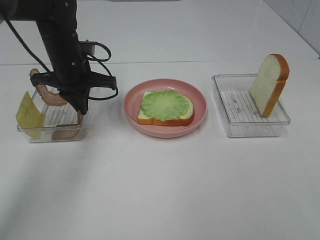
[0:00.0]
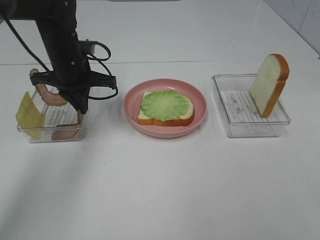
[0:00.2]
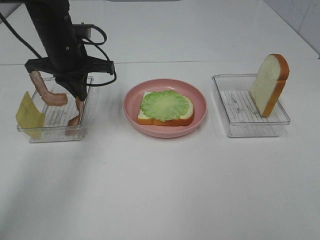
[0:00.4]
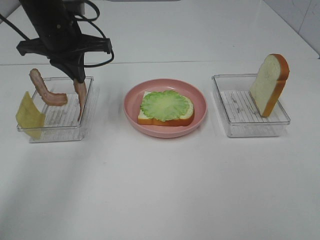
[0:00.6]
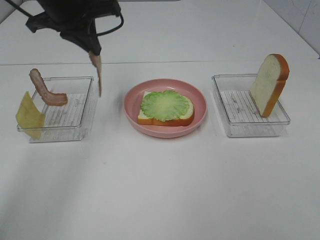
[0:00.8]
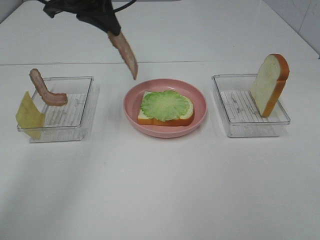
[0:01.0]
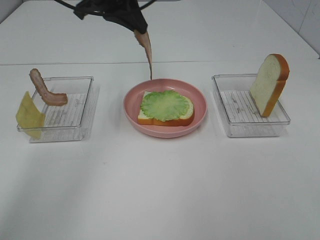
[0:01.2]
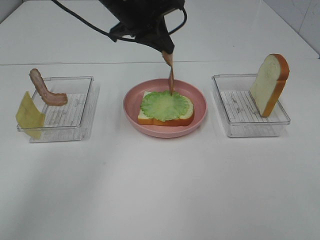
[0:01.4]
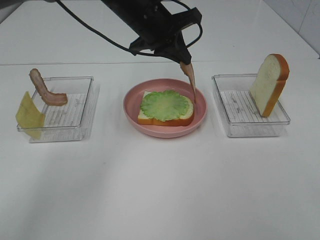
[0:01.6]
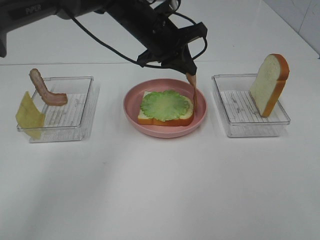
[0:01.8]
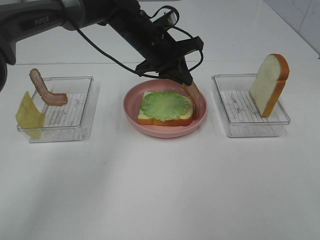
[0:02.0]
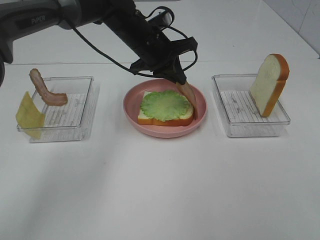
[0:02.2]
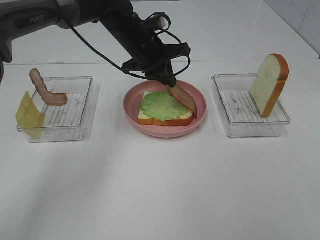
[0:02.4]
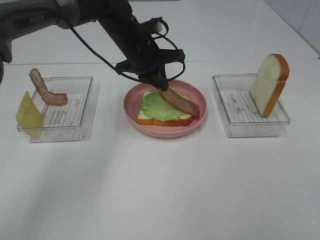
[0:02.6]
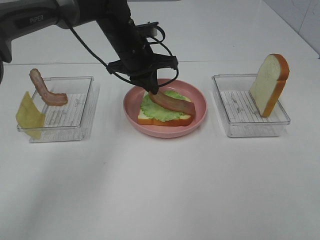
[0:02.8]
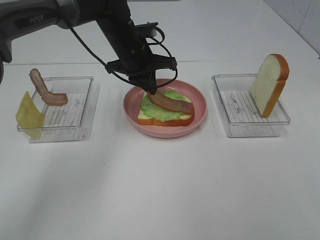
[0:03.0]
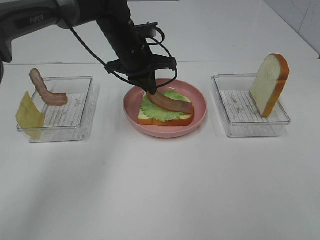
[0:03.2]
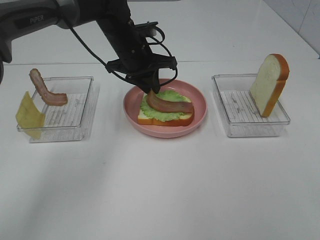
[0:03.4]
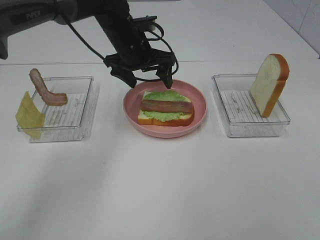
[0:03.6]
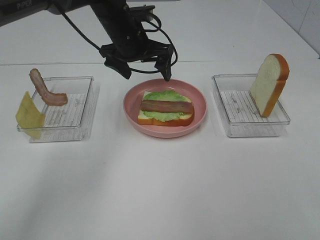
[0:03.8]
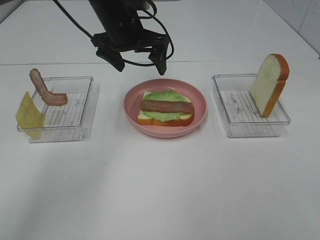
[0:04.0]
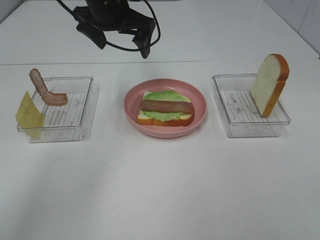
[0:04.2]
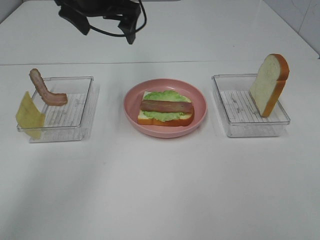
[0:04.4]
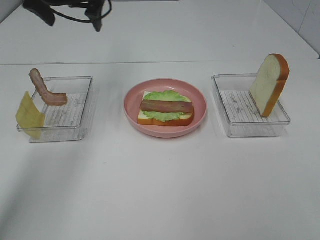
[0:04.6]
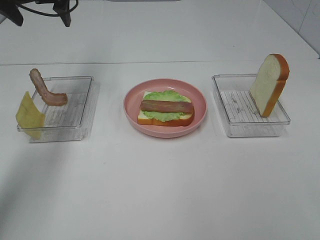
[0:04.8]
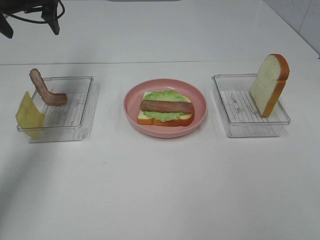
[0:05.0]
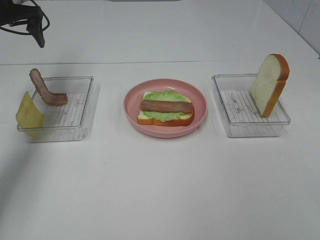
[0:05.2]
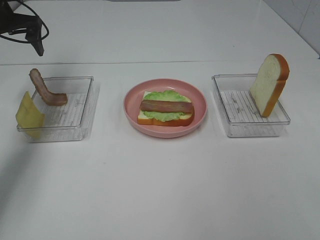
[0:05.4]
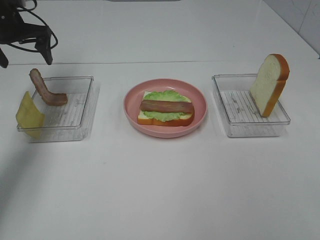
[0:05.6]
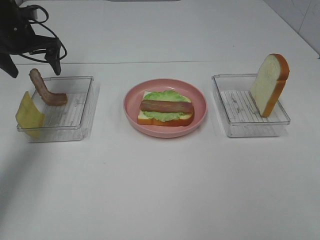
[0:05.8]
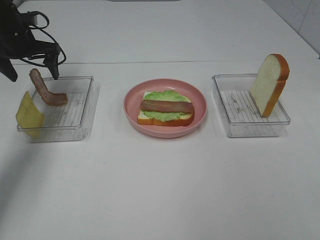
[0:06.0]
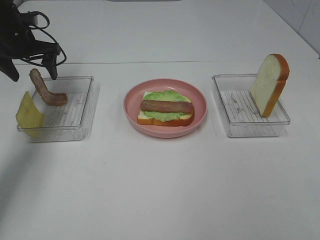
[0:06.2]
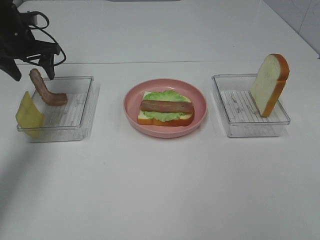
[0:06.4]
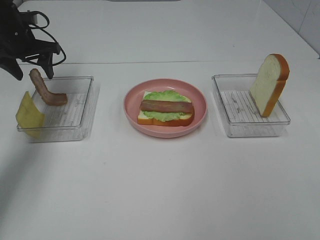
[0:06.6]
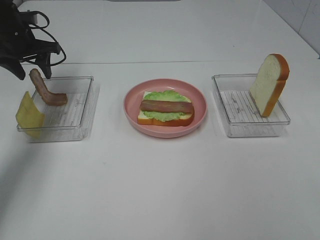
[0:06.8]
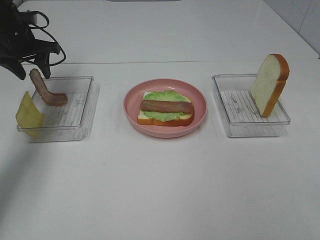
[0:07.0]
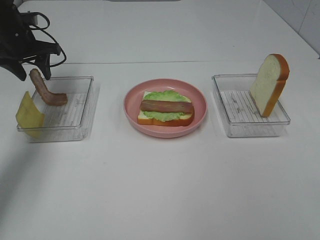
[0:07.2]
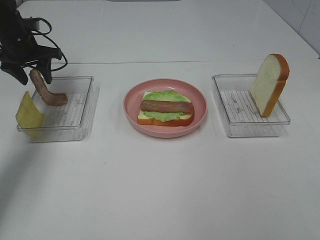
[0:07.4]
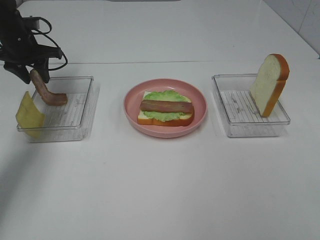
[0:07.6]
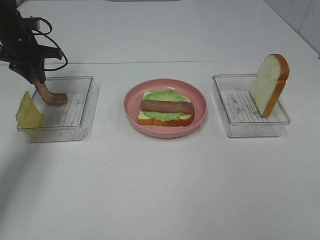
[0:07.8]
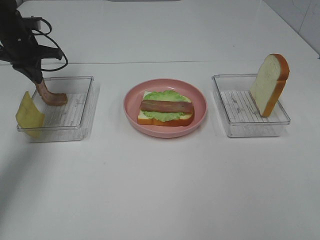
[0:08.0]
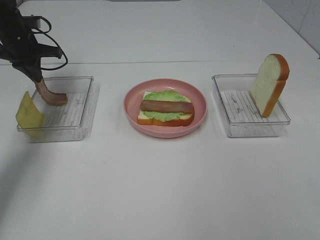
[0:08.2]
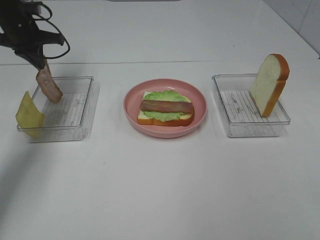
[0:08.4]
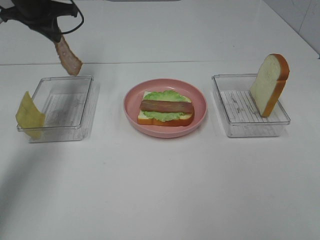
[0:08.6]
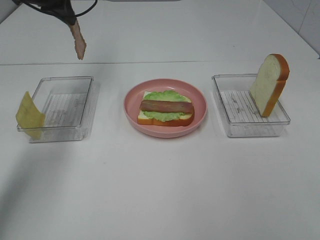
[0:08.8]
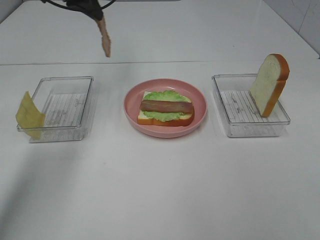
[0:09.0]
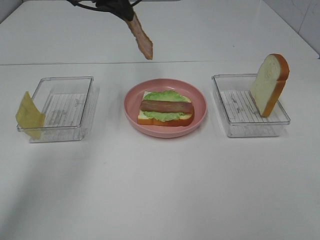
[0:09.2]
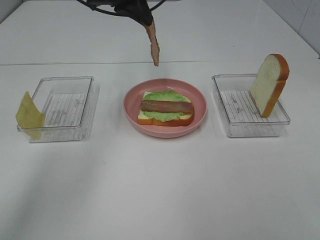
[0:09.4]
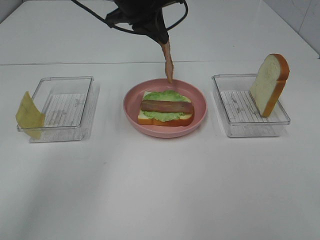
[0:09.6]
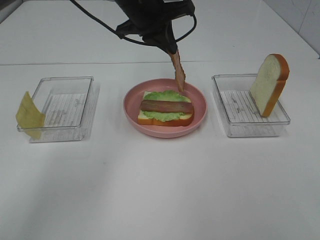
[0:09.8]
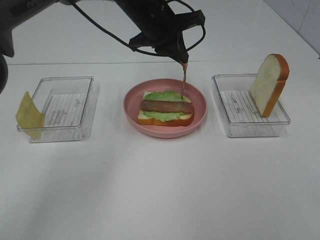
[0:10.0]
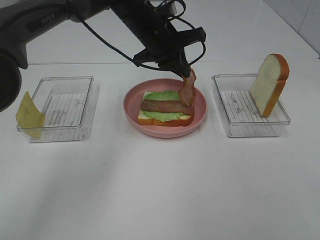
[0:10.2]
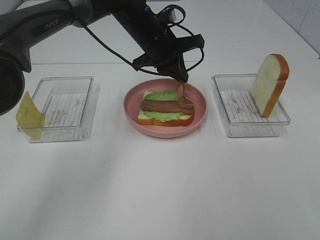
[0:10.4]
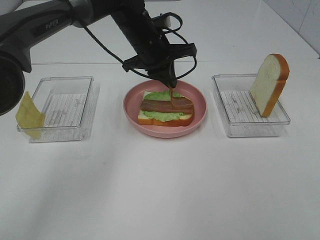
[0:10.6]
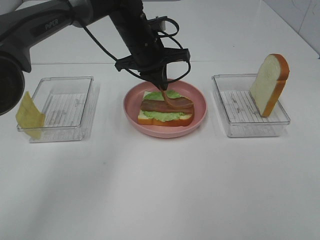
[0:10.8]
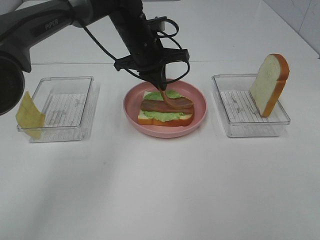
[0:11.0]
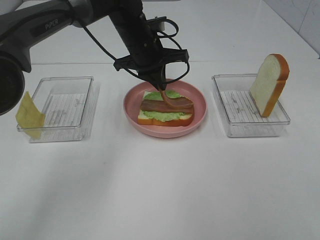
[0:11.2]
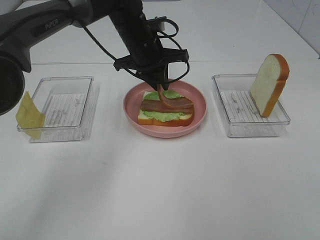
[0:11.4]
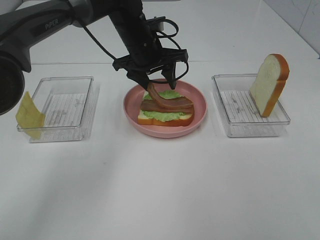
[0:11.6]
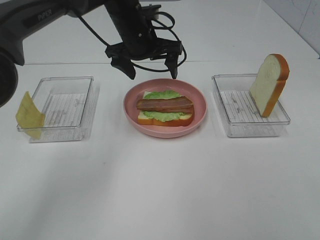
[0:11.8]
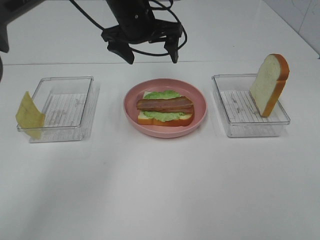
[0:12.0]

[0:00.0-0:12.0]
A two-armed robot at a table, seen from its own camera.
Task of the whole recording: Make sandwiches.
Step, 0:00.4 to 0:03.6: Left hand:place bacon on lettuce slice.
Step, 0:03.8 to 0:08.0: Left hand:grab the bacon.
Step, 0:08.2 to 0:11.8: Left hand:place bacon on bacon.
0:00.0 to 0:01.6: The left gripper is displaced to the right and upward by some 15 cm.
0:01.6 to 0:03.0: The left gripper goes roughly 5 cm downward.
0:03.0 to 0:04.4: The left gripper is displaced upward and to the left by some 15 cm, and opens.
0:04.4 to 0:06.0: The left gripper moves to the left and downward, some 20 cm.
0:06.0 to 0:07.6: The left gripper closes its fingers.
0:07.6 to 0:09.0: The left gripper travels to the right and upward by roughly 20 cm, and closes.
0:09.0 to 0:10.4: The left gripper travels to the right and downward by approximately 20 cm.
0:10.4 to 0:12.0: The left gripper moves upward, about 5 cm, and opens.

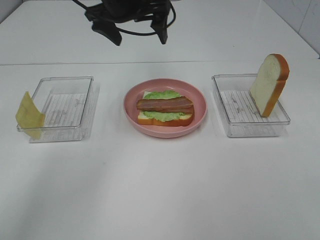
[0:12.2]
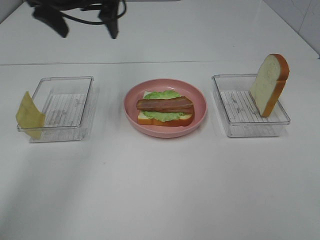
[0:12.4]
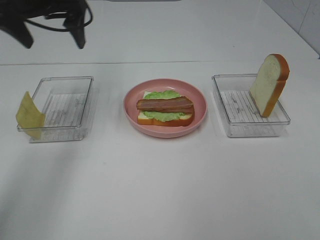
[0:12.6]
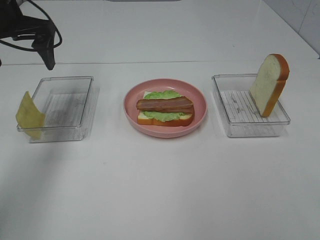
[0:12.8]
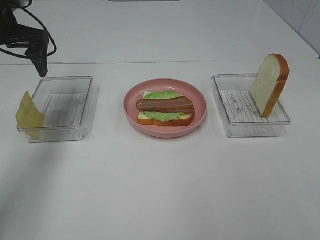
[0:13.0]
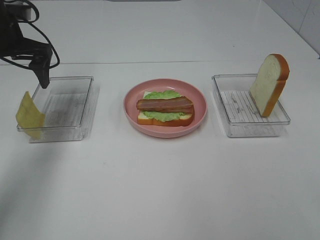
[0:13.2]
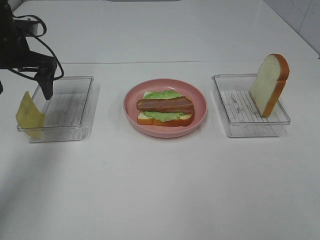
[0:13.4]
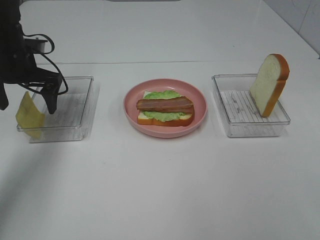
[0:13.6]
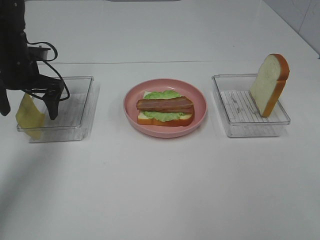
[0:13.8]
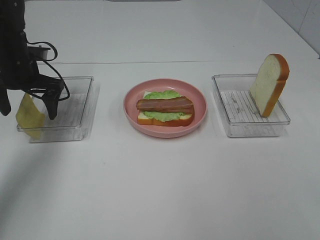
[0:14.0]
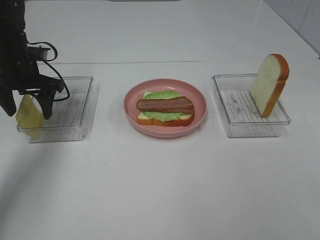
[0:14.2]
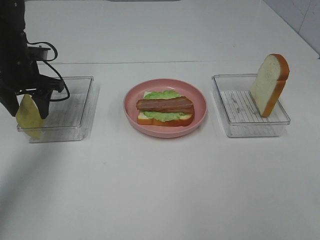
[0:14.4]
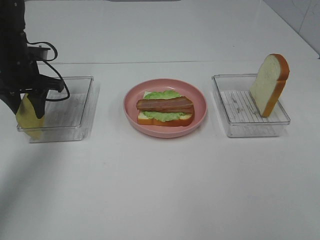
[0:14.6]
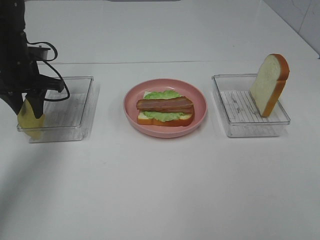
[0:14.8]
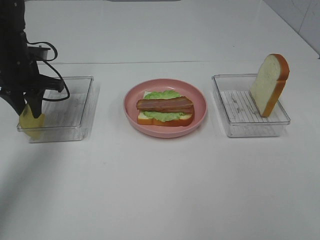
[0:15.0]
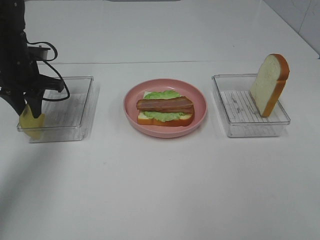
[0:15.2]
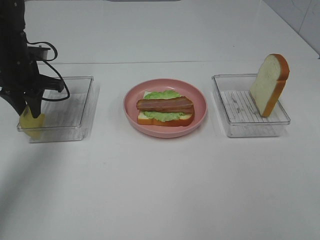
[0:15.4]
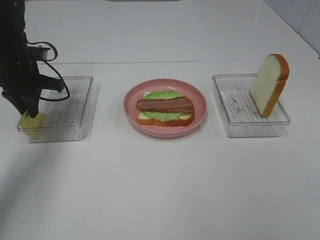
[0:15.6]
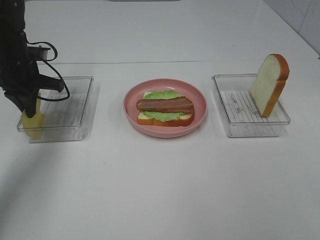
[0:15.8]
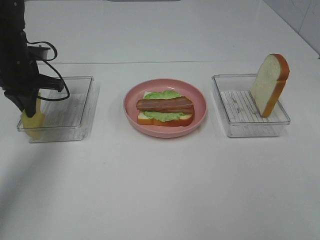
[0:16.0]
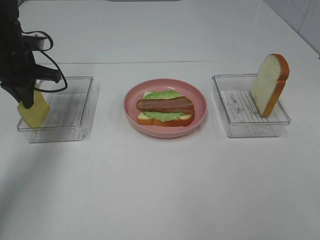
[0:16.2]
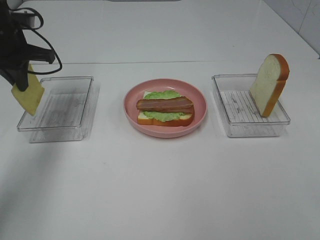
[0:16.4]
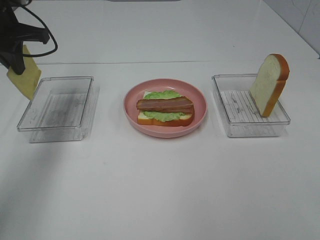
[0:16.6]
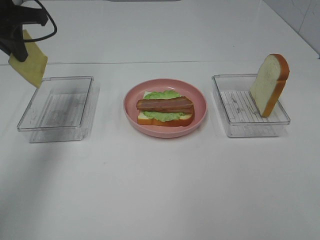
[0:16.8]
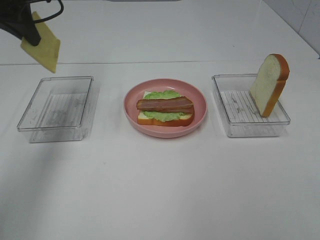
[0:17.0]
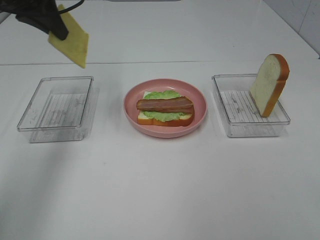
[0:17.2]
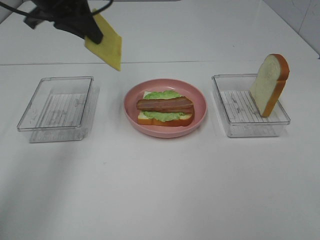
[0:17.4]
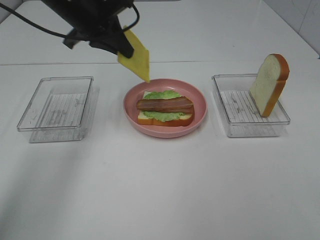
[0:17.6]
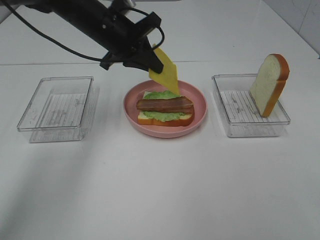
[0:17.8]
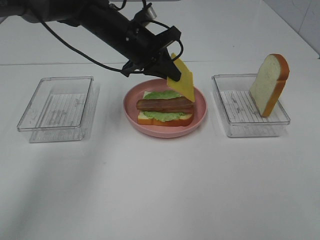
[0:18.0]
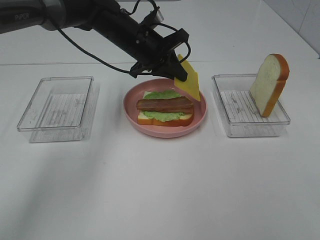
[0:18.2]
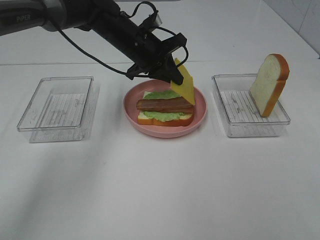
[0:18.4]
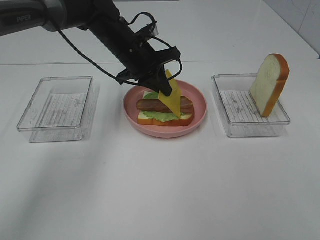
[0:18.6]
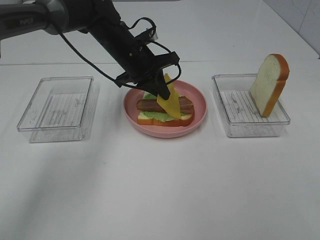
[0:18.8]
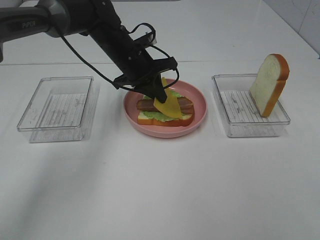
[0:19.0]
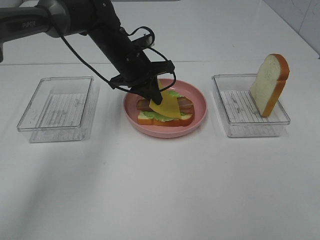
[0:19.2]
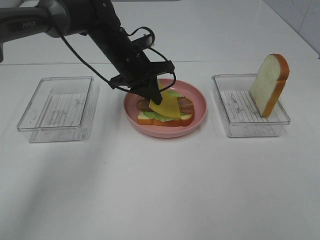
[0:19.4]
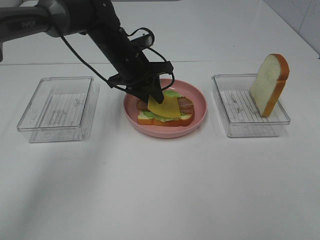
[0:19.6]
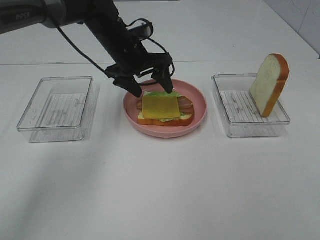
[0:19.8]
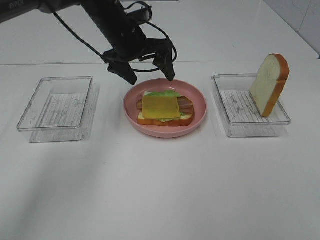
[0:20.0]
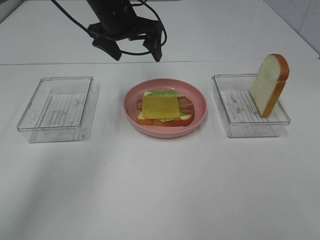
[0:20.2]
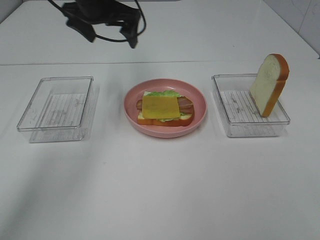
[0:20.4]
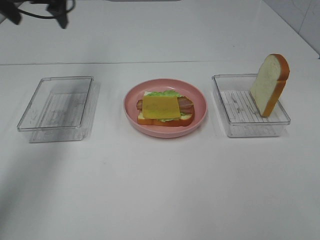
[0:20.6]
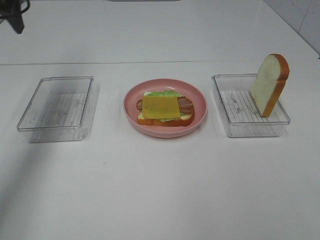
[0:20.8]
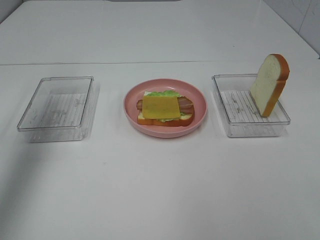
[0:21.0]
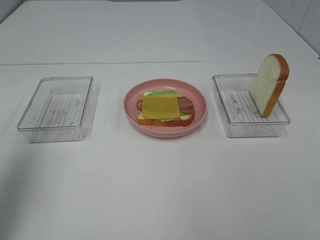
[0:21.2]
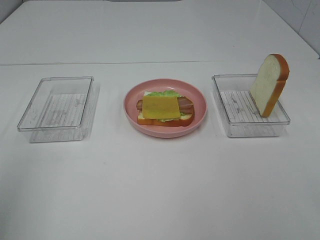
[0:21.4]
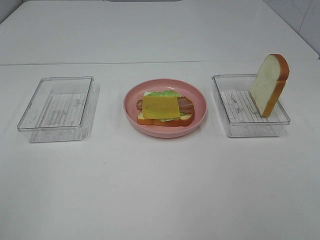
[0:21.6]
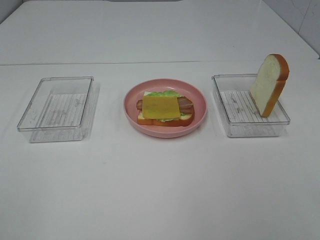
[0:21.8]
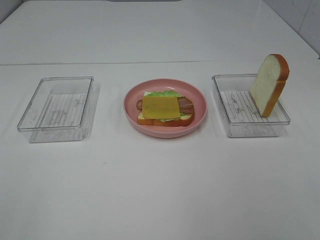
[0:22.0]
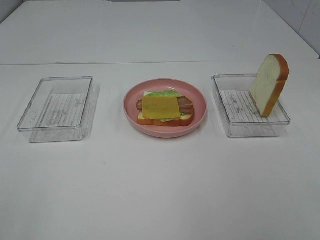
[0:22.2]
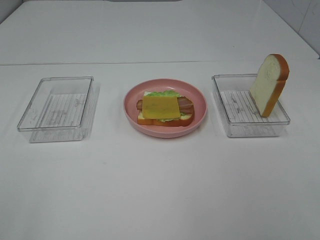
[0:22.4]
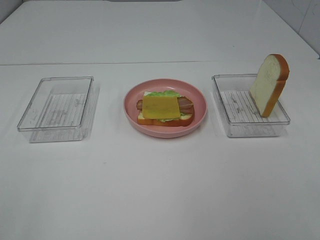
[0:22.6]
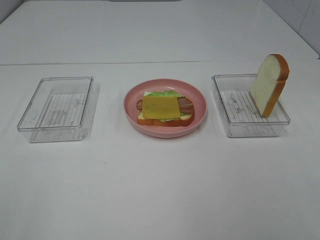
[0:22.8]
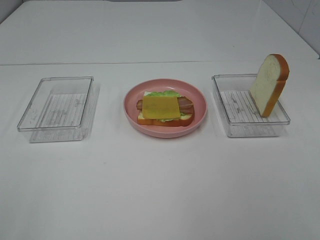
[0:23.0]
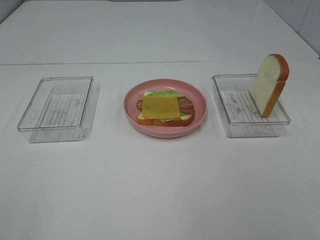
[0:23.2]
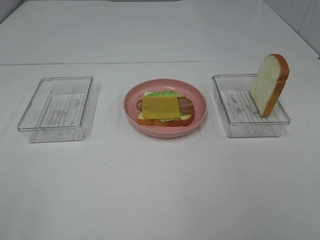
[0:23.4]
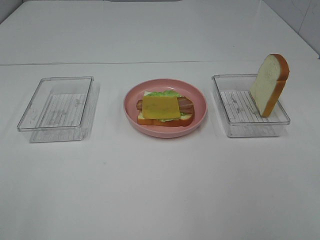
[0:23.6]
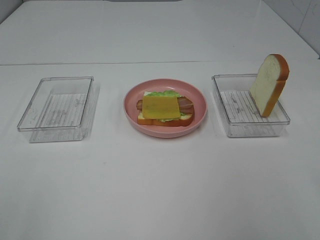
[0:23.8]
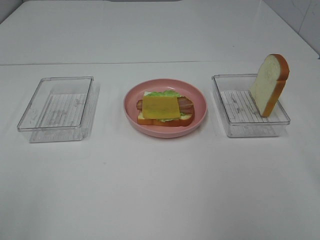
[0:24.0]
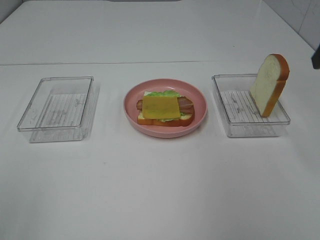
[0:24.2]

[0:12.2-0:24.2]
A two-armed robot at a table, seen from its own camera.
Task of the whole recording: Make sandwiches.
Step, 0:12.2 to 0:16.0: Left hand:grab the cheese slice.
Step, 0:16.2 to 0:20.0: Left hand:place the cheese slice on top of the bacon.
0:12.2 to 0:13.8: The left gripper heads to the left and downward, covering about 25 cm.
0:13.8 to 0:15.2: The left gripper closes up.
0:15.2 to 0:16.6: The left gripper shifts some 10 cm upward.
0:16.6 to 0:18.2: The left gripper moves to the right, some 20 cm.
0:18.2 to 0:19.8: The left gripper opens its fingers.
0:19.8 to 0:21.2: The left gripper moves backward, to the left and upward, some 40 cm.
0:21.2 to 0:22.6: The left gripper shifts about 20 cm backward.
